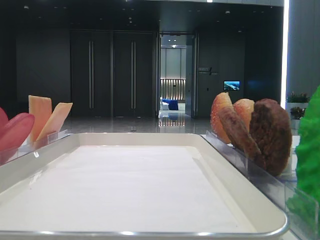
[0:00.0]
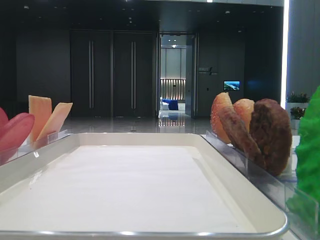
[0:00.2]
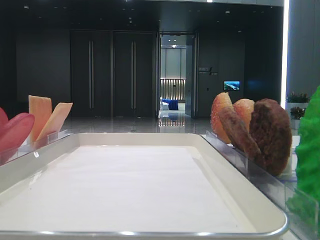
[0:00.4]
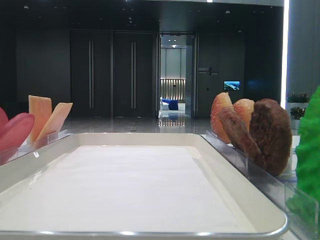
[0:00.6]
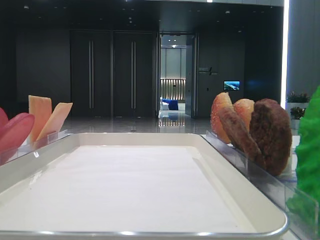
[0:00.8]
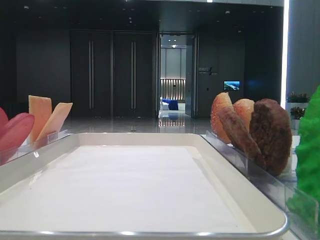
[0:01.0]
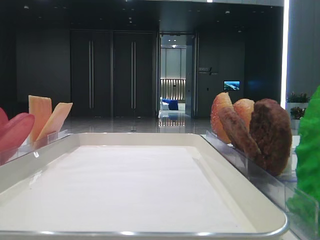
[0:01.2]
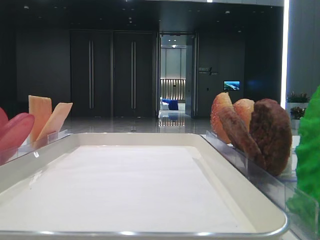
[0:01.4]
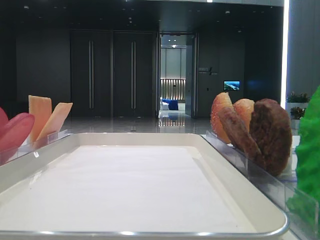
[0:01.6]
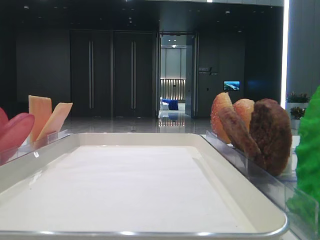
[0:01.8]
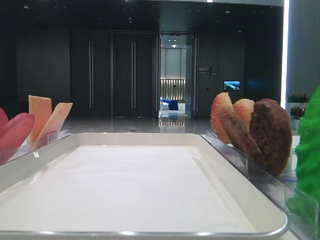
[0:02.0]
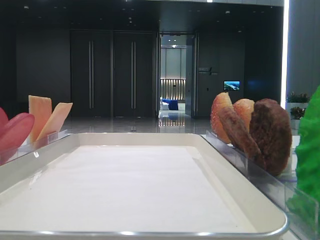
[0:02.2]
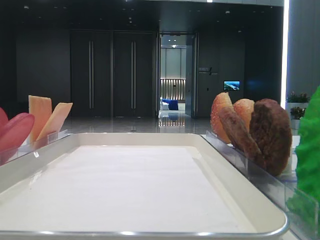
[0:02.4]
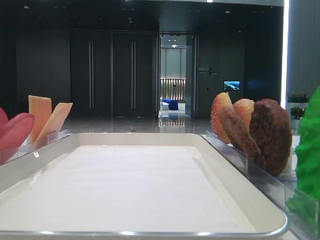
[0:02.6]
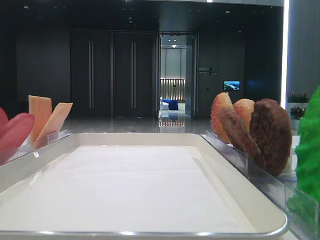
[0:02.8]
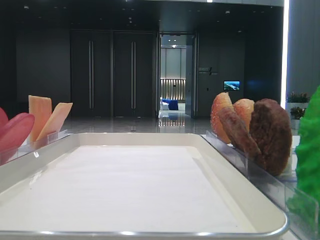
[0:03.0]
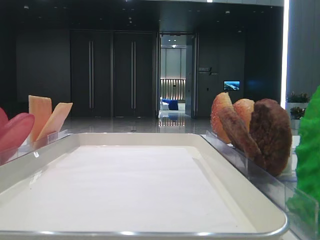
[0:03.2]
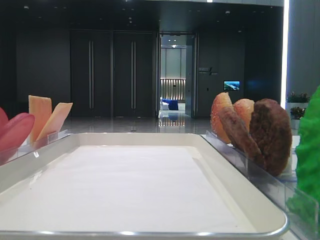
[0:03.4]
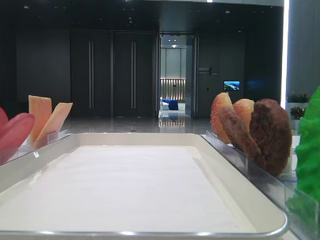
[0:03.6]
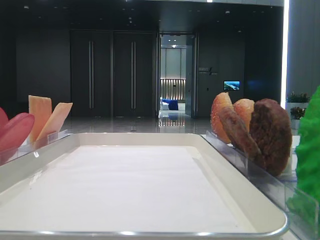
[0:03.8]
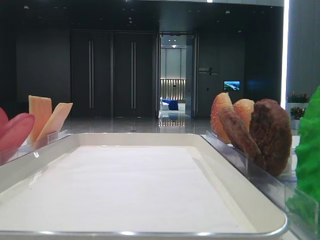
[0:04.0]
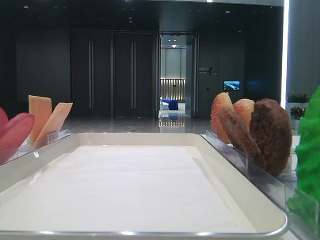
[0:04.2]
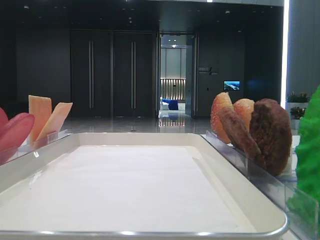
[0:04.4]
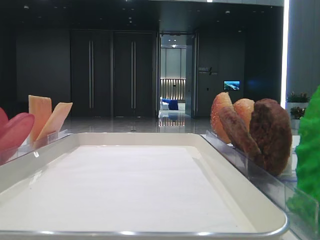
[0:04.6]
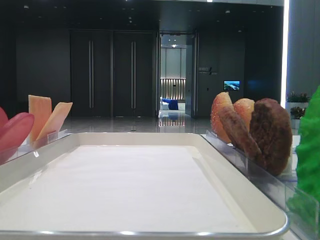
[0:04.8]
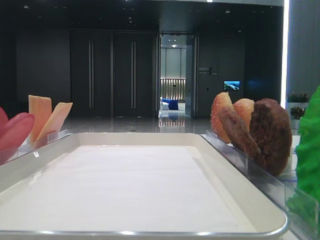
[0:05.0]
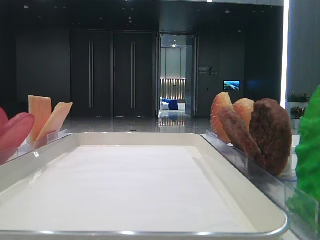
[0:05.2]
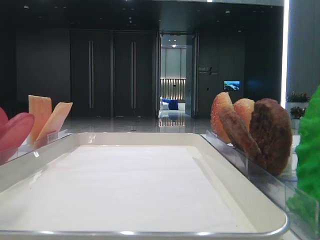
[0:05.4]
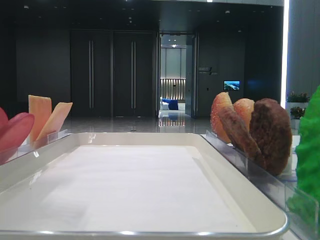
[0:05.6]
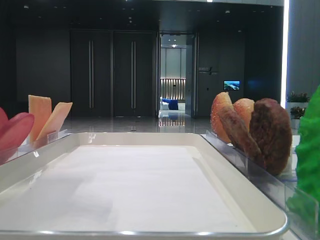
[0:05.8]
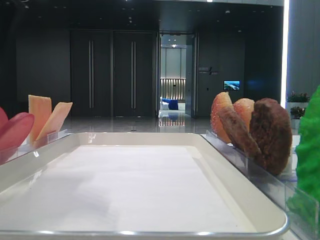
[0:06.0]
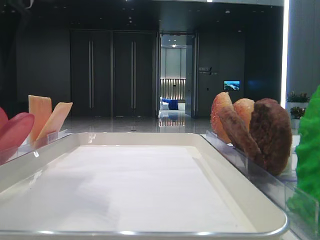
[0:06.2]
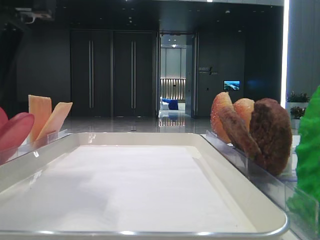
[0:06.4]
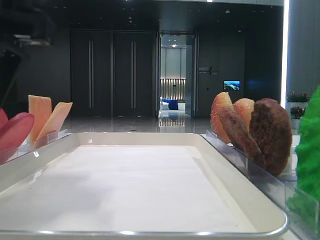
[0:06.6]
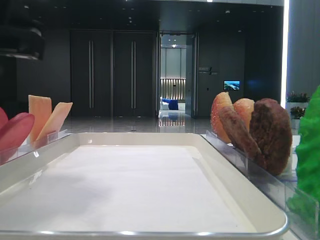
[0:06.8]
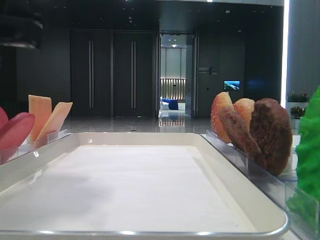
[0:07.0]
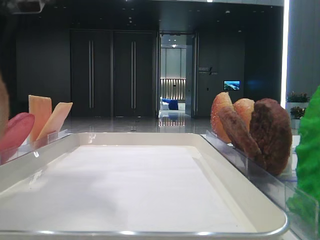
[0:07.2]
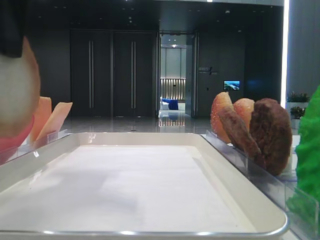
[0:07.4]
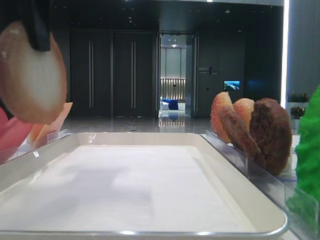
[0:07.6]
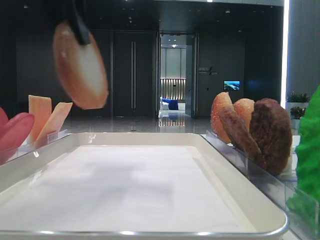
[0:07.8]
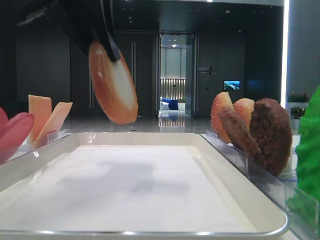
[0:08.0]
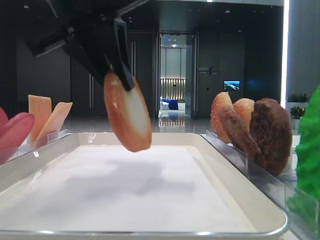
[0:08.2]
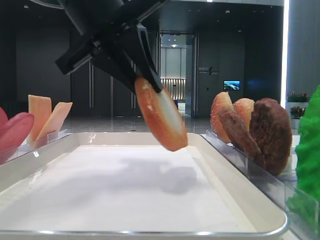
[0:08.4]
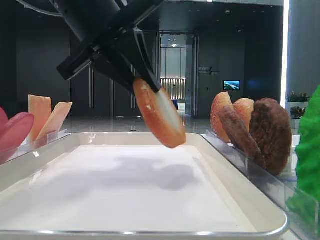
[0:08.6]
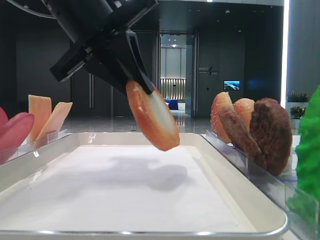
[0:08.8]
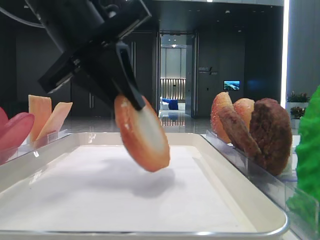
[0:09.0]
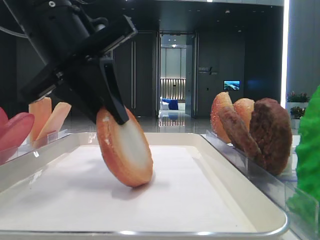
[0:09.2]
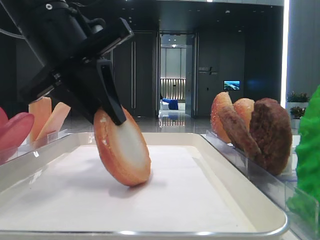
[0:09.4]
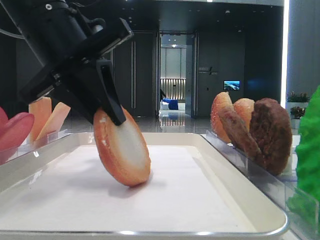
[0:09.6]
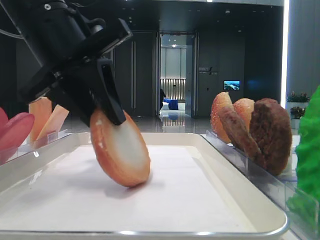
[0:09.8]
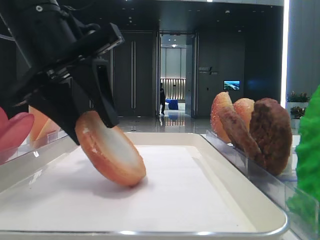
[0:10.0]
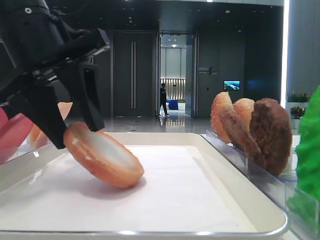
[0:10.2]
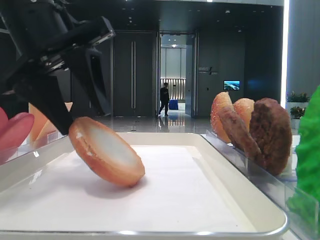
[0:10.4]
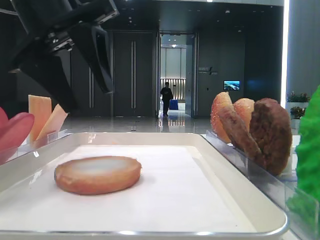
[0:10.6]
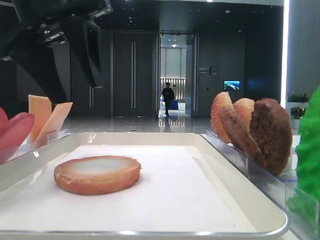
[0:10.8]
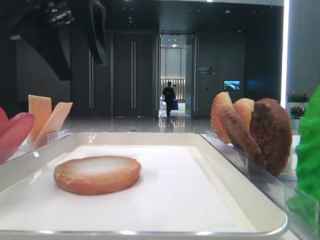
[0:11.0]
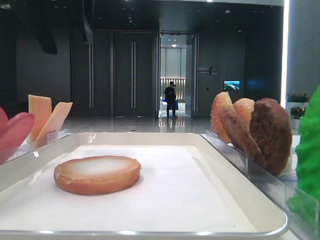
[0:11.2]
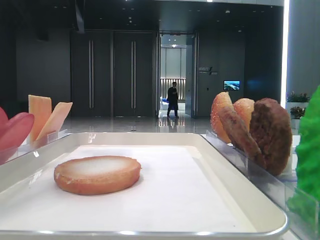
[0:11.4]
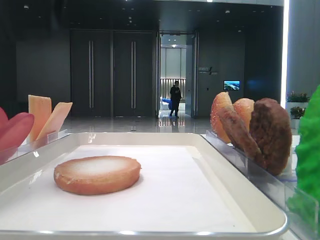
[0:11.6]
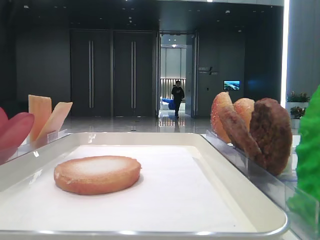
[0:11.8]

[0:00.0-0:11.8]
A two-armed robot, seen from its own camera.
Step, 0:00.0 to 0:05.8: Pick up the bottom bread with the left hand.
0:01.4 to 0:03.0: Both grippers stay put.
0:04.4 to 0:06.0: The left gripper heads to the right and forward, covering about 20 cm, and opens.
0:06.0 to 0:07.4: The left gripper closes up.
0:07.4 to 0:08.8: The left gripper heads forward and downward, covering roughly 10 cm.
0:08.8 to 0:10.4: The left gripper opens its fingers.
0:10.4 to 0:11.8: The left gripper moves upward, to the left and forward, some 20 cm.

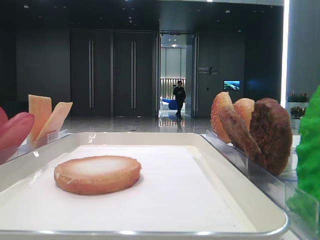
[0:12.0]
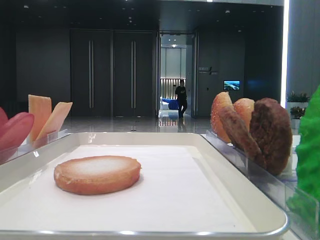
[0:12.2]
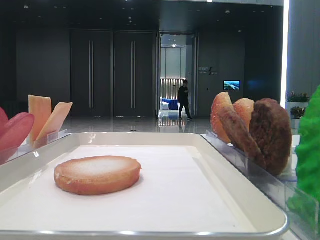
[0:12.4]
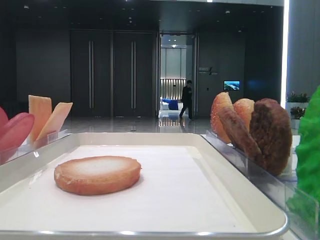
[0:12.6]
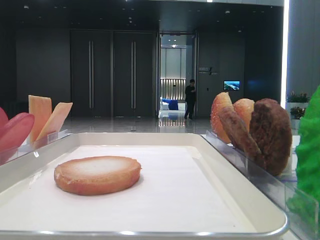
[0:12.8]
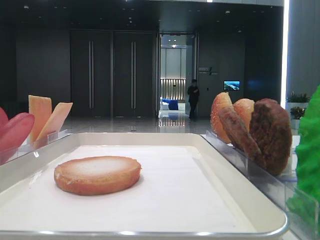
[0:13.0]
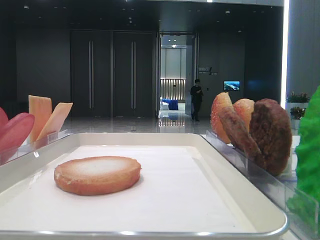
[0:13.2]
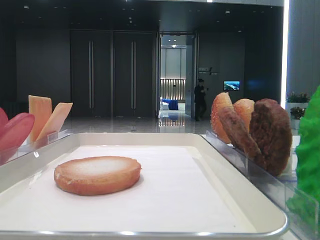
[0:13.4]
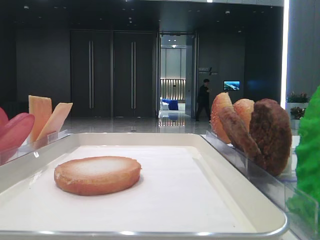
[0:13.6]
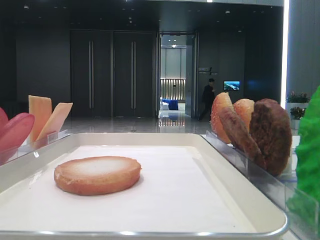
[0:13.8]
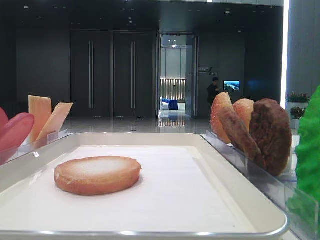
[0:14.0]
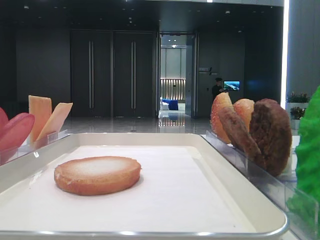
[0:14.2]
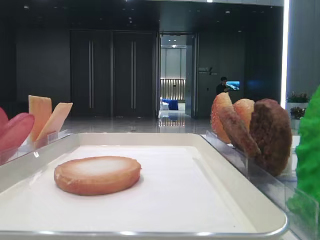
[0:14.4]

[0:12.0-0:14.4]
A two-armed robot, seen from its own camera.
0:12.0 to 0:13.2: The left gripper moves backward, some 30 cm.

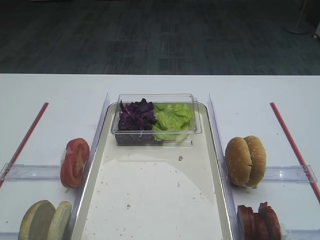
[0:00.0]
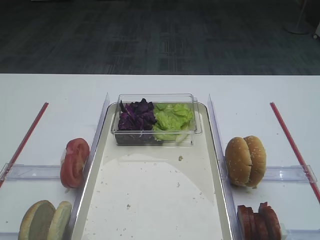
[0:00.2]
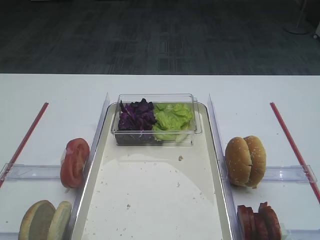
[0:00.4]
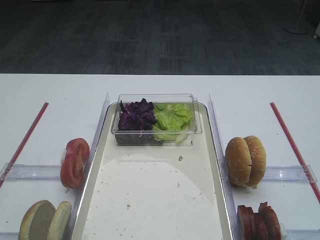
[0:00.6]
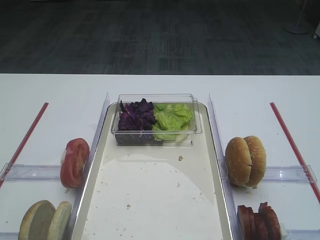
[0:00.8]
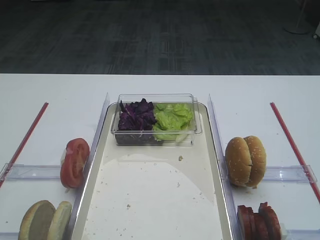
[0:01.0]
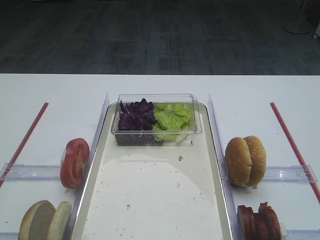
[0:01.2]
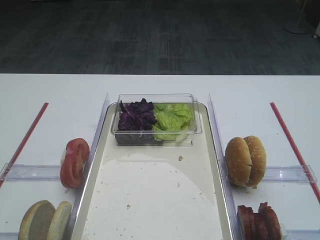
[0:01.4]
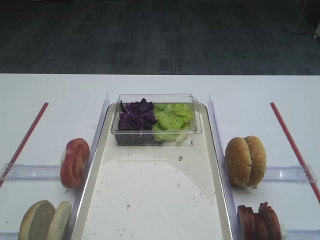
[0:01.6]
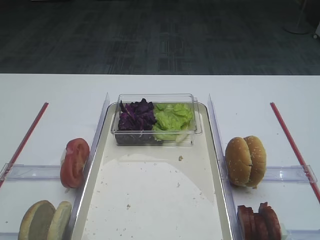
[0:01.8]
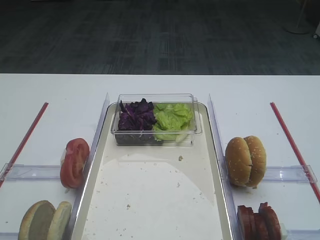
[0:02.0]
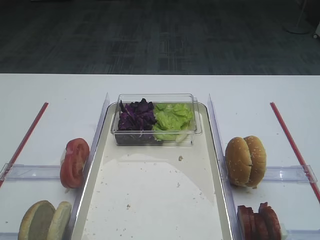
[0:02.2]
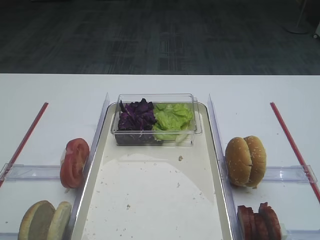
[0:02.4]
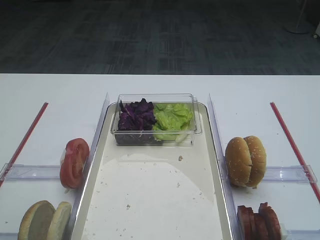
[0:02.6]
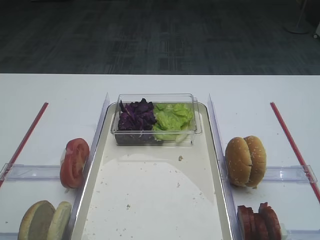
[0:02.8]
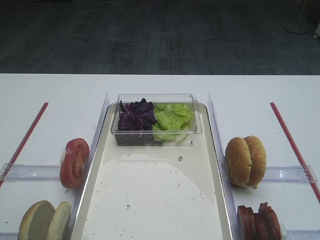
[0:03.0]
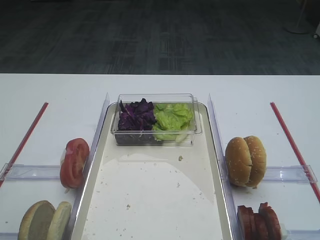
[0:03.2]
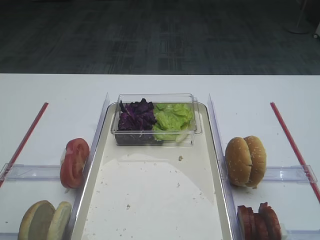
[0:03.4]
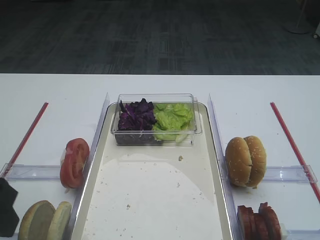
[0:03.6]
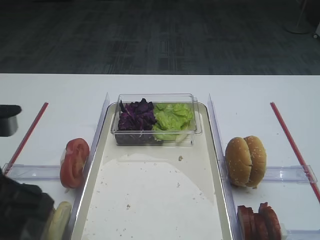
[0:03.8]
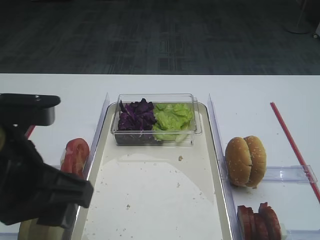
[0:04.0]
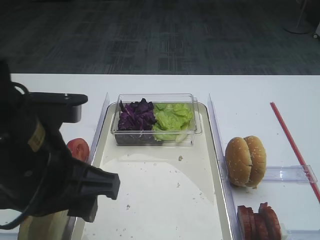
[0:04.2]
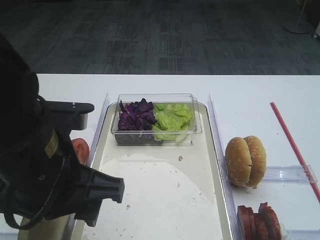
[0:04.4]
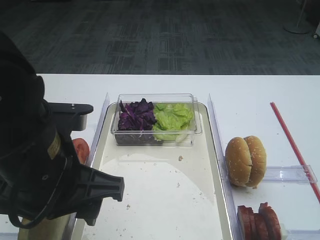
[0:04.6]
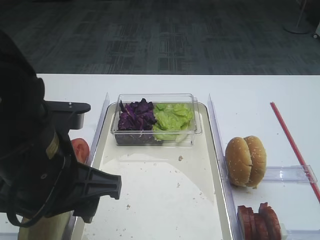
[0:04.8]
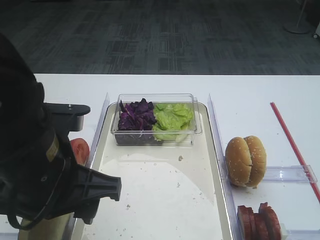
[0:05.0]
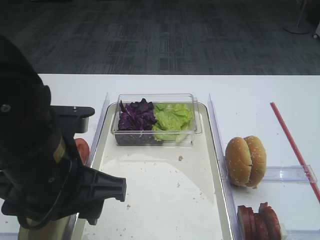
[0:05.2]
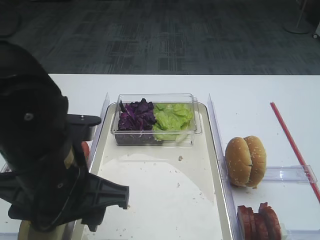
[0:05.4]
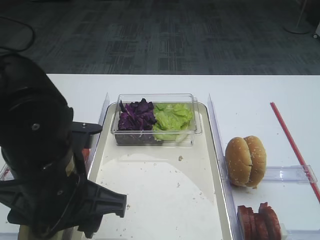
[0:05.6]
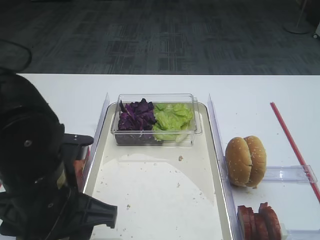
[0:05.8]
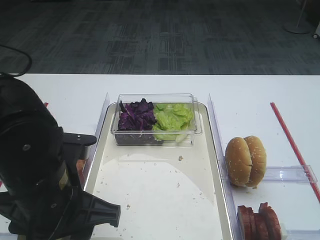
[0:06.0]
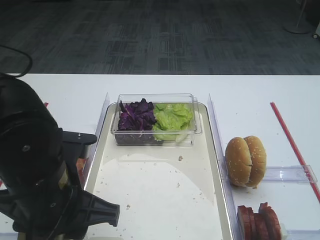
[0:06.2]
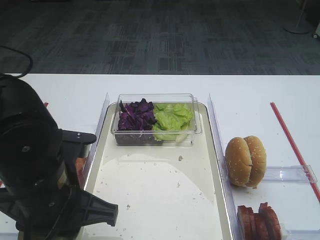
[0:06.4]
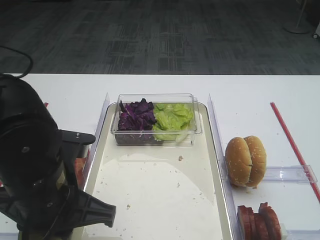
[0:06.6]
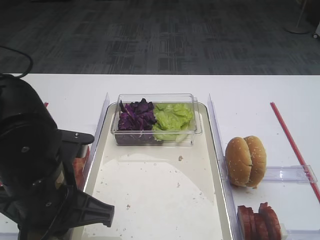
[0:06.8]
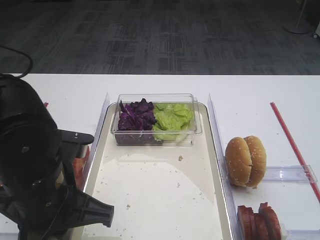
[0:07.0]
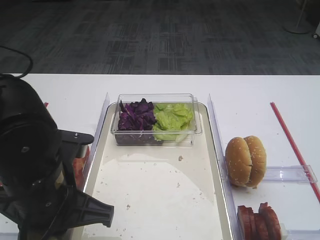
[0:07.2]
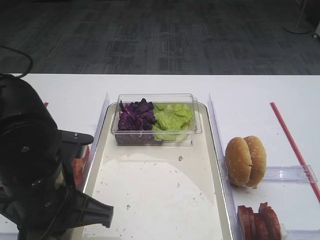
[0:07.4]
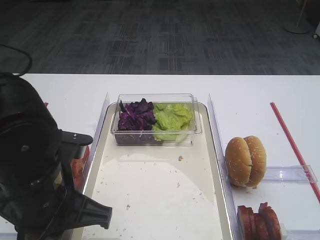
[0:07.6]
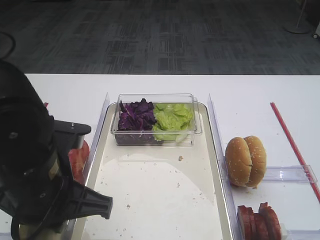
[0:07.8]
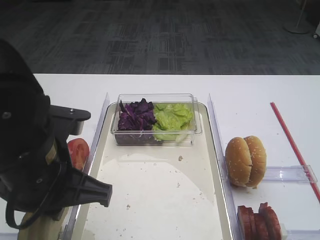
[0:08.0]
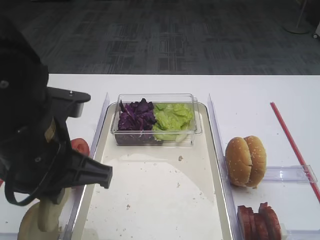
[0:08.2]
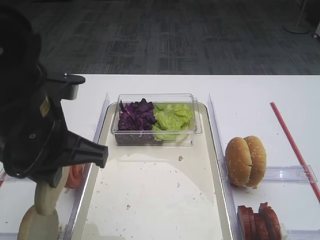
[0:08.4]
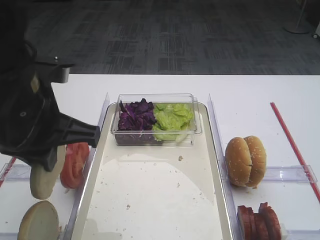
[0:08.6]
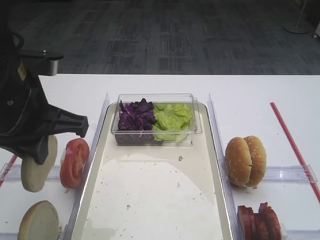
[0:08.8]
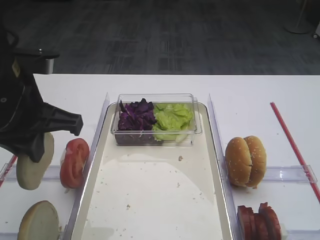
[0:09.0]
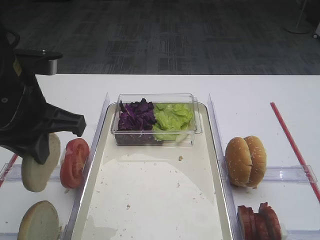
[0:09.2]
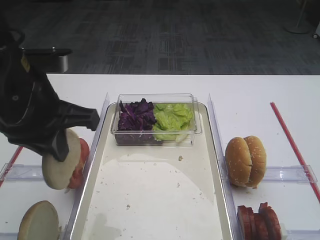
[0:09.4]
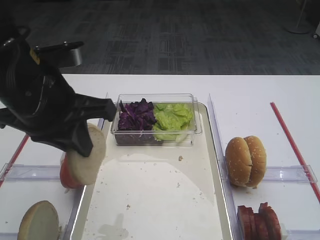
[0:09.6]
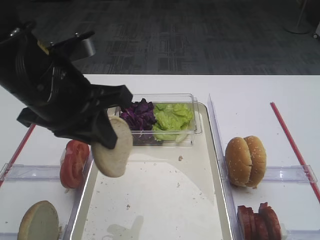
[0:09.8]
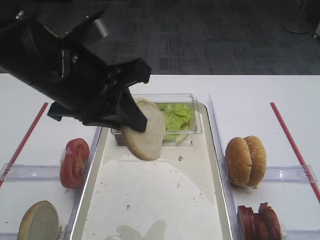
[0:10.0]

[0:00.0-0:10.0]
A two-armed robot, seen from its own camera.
Step, 0:00.0 to 0:08.0: Pick up the bread slice with the left gripper.
0:02.8 to 0:04.2: The left gripper goes some 15 cm to the right.
0:04.2 to 0:05.8: The left gripper is displaced downward by some 5 cm.
0:05.8 to 0:07.2: The left gripper closes up.
0:07.2 to 0:08.6: The left gripper is displaced upward by some 10 cm.
